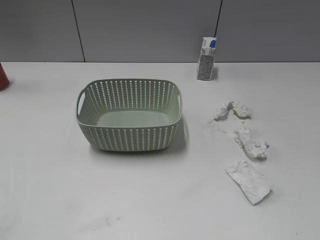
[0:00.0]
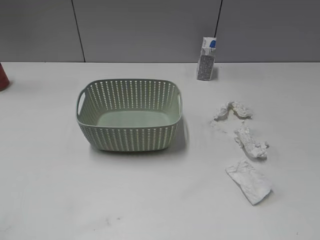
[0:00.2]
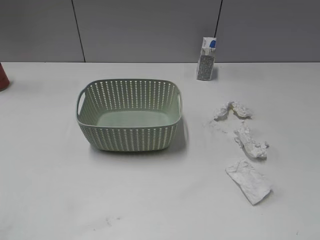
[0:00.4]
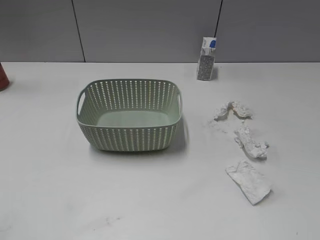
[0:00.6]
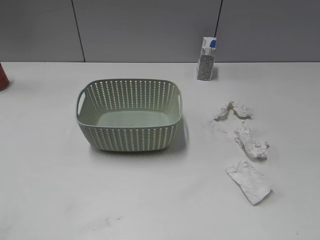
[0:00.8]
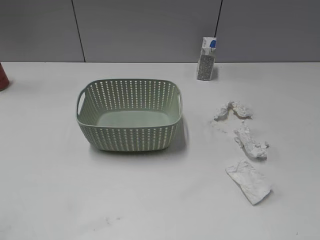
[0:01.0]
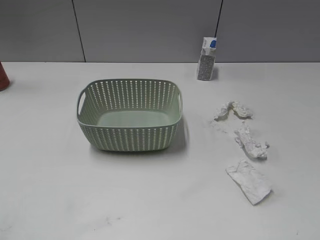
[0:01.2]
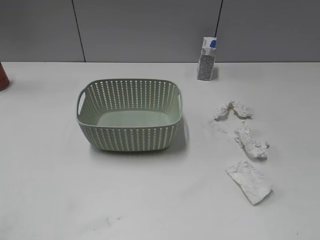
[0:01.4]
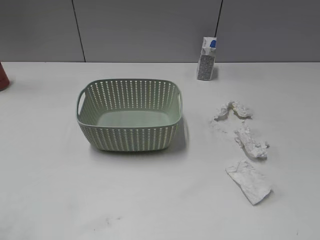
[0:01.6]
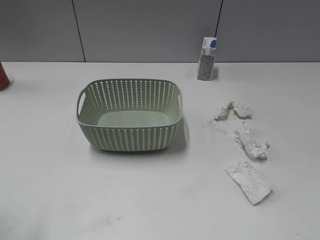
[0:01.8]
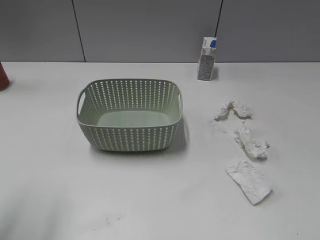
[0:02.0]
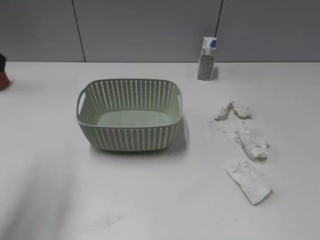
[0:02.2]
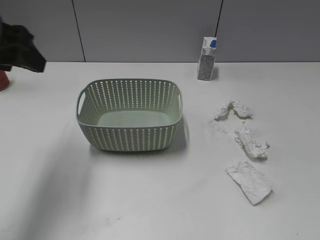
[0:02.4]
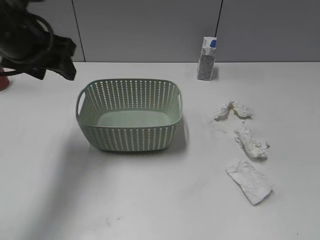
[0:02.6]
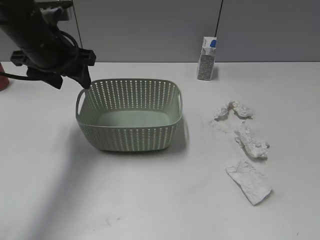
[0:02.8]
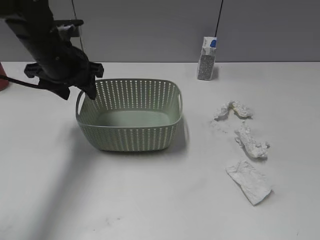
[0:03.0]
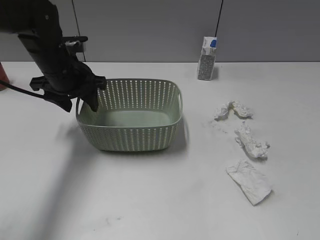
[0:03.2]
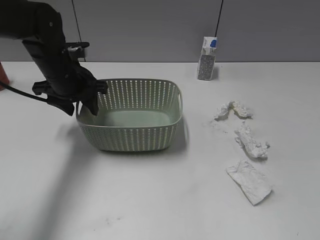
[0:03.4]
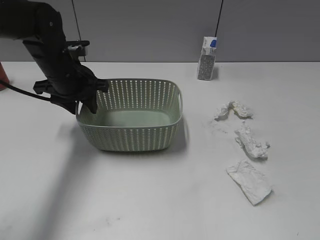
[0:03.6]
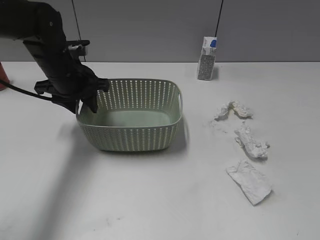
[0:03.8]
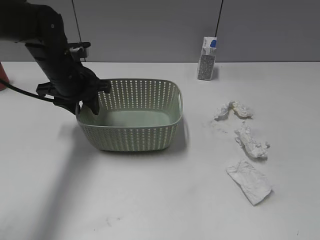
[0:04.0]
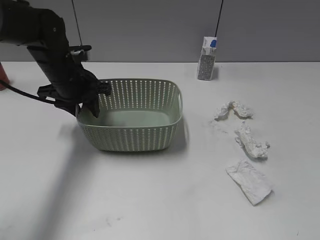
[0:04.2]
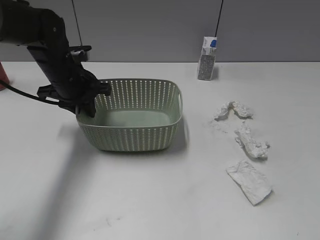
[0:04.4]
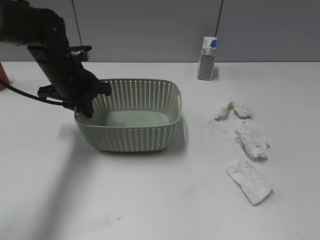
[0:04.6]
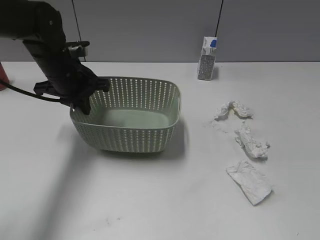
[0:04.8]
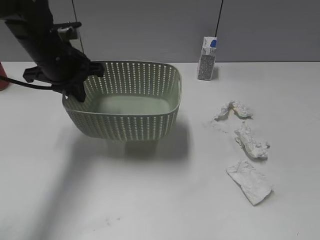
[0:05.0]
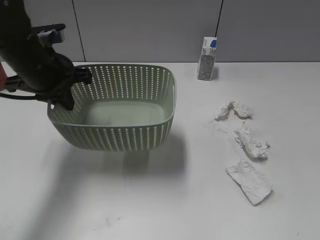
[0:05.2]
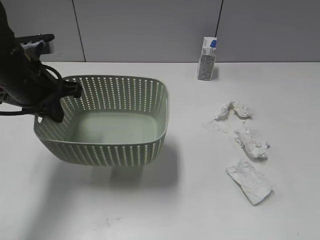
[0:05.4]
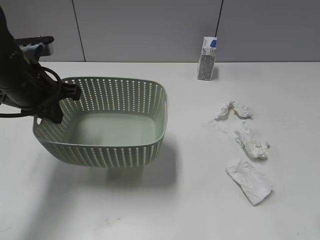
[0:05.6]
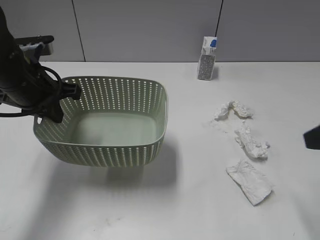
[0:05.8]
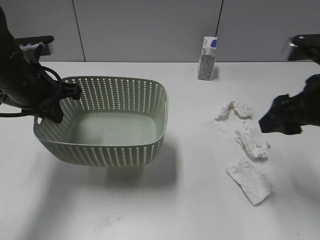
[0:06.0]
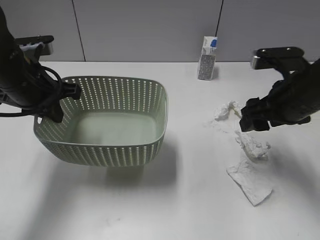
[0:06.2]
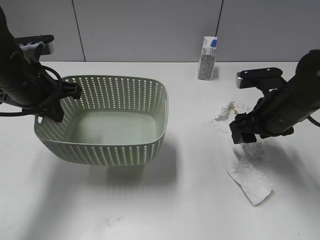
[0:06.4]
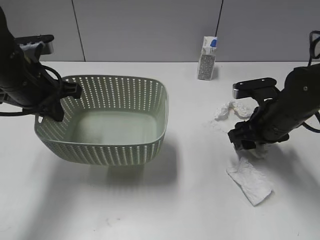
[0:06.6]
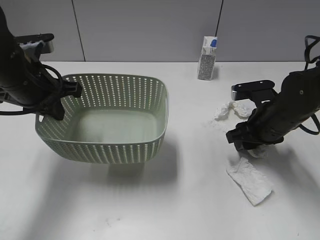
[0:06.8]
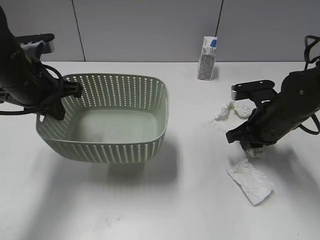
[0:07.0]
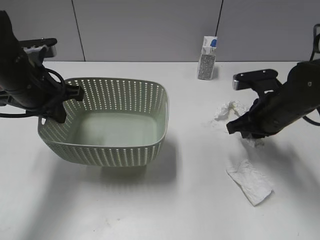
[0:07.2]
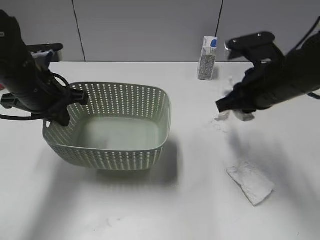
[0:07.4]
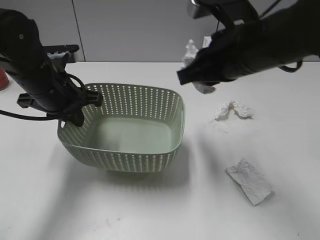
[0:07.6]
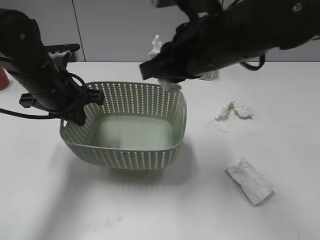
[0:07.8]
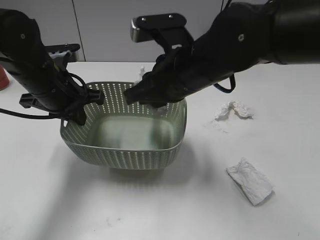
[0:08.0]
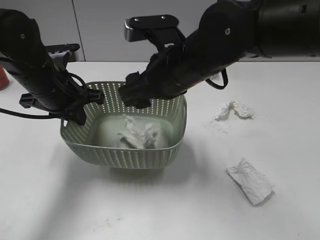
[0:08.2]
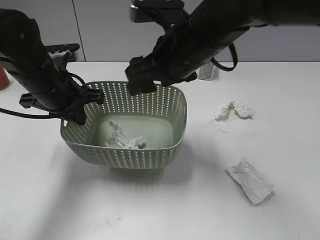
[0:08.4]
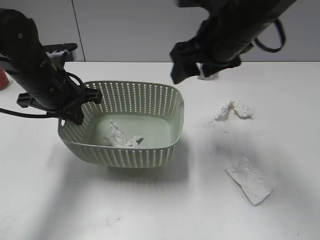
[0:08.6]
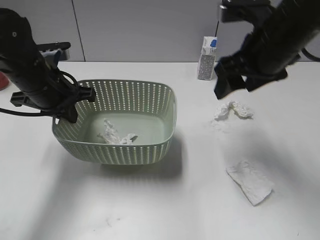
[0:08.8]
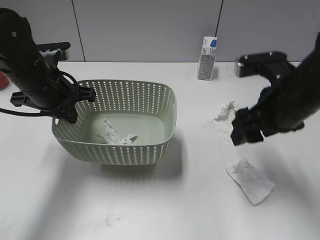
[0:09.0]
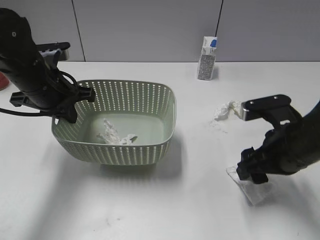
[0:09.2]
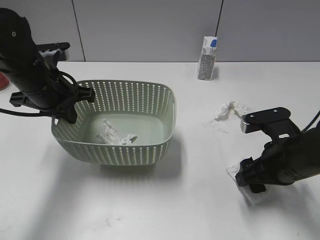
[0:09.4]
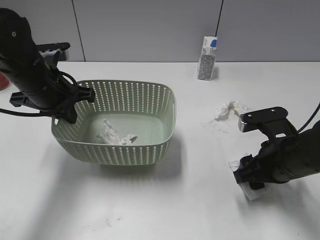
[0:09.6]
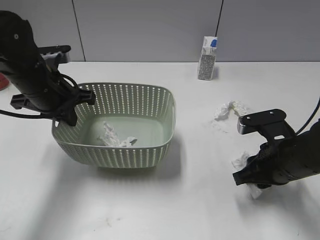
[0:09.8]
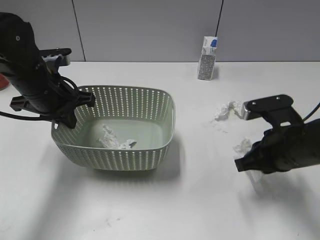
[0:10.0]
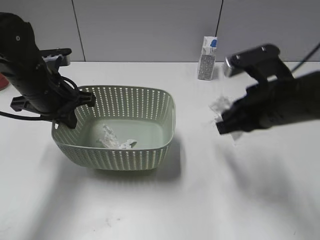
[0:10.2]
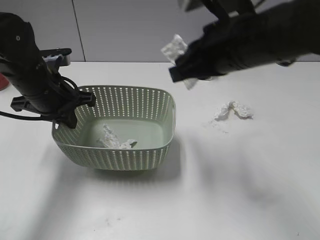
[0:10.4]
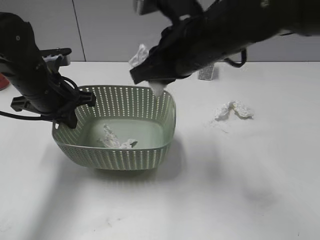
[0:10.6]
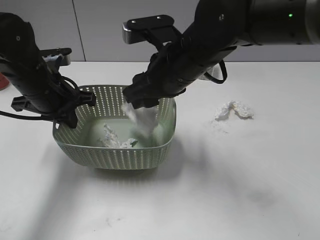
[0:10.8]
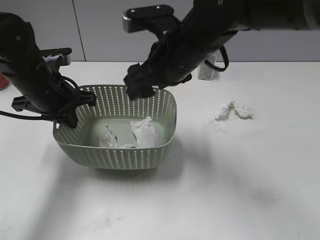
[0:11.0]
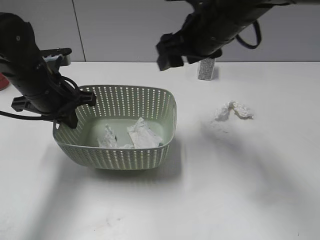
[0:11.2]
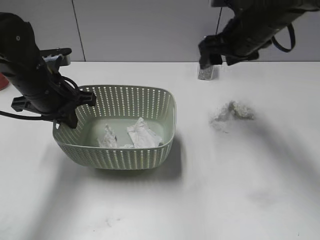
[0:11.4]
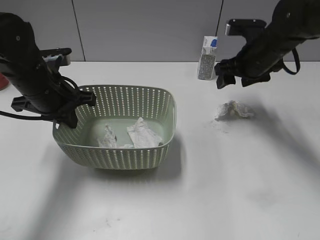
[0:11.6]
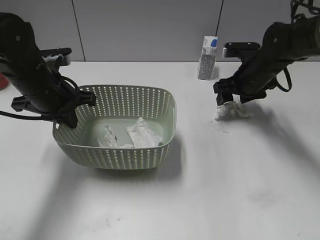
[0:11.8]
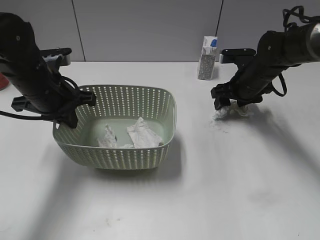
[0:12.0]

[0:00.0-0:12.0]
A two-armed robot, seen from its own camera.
Step, 0:02.2 to 0:04.6: Grasp the basket with left gripper.
Step, 0:05.0 to 0:07.2: Grasp the waste paper with right gripper.
Step, 0:07.4 to 0:08.2: Place the waste paper in the basket with right gripper.
Step, 0:08.4 to 0:09.8: Grasp the waste paper with right gripper.
Step, 0:10.0 to 0:11.0: Place the waste paper in the basket with right gripper.
0:01.6 to 0:03.0: The left gripper travels forward, to the right and downward by about 35 cm.
0:03.0 to 0:04.4: The left gripper closes.
0:04.4 to 0:06.0: The left gripper heads backward and upward, covering approximately 10 cm; the right gripper travels forward by about 25 cm.
0:06.0 to 0:07.6: The right gripper shifts roughly 15 cm to the left, goes downward and returns, approximately 10 cm each way, and closes its fingers.
0:07.6 to 0:09.0: The right gripper heads to the right and downward, covering some 15 cm, and opens up.
0:09.0 to 0:10.4: The right gripper goes roughly 15 cm to the left and upward, and closes.
0:10.4 to 0:12.0: The right gripper goes some 25 cm downward, forward and to the right, and opens up.

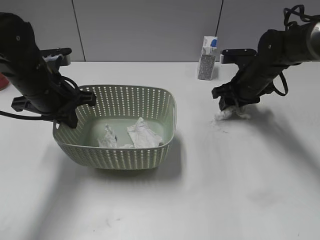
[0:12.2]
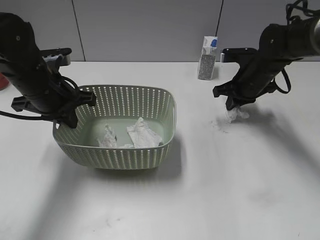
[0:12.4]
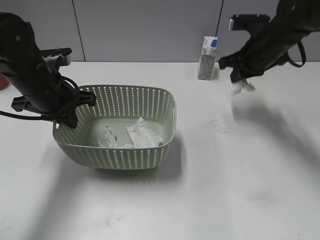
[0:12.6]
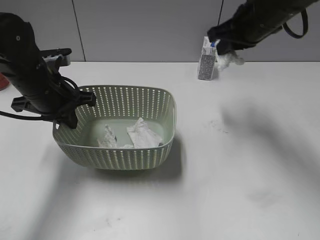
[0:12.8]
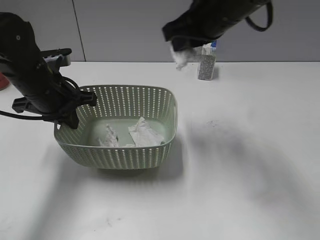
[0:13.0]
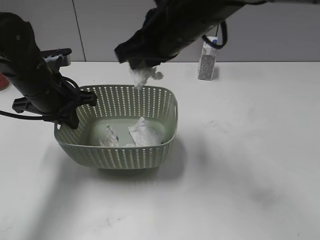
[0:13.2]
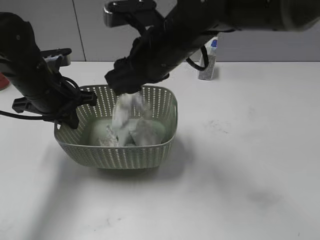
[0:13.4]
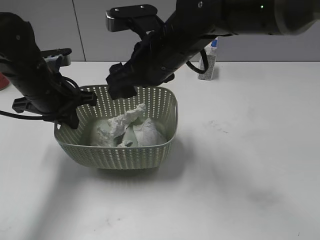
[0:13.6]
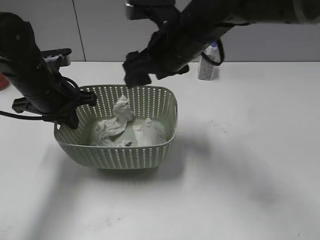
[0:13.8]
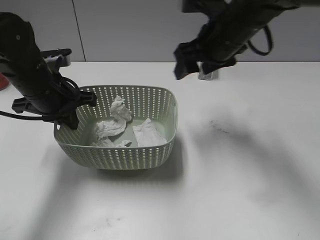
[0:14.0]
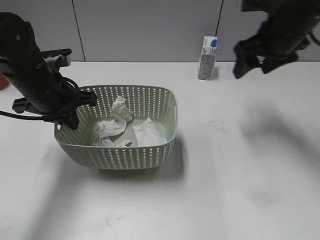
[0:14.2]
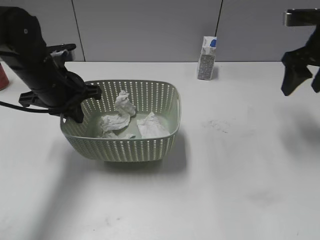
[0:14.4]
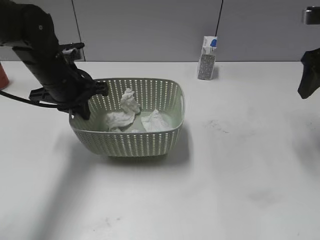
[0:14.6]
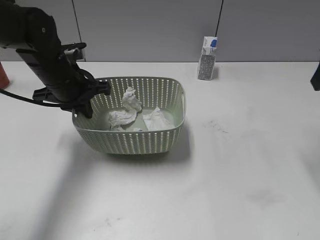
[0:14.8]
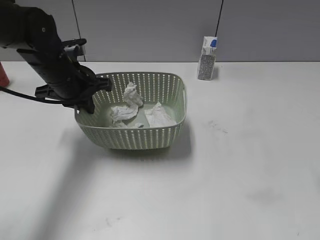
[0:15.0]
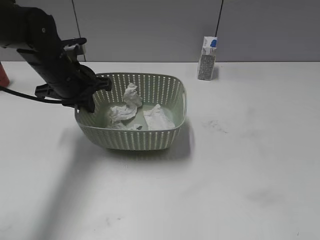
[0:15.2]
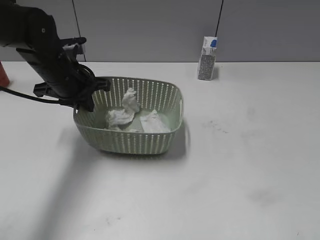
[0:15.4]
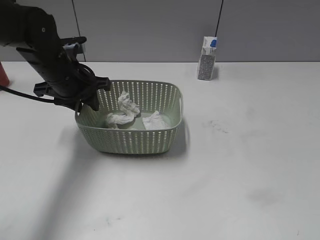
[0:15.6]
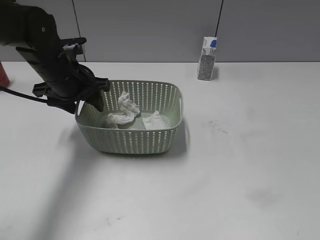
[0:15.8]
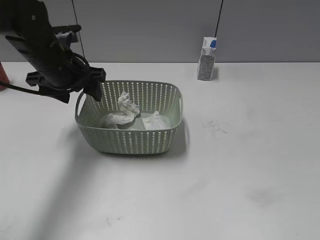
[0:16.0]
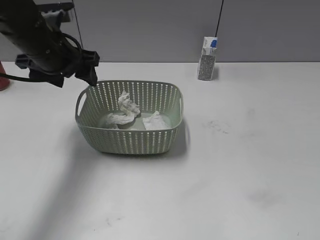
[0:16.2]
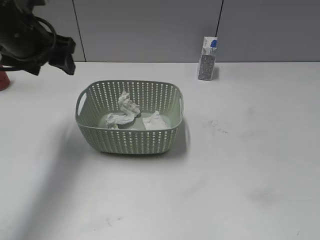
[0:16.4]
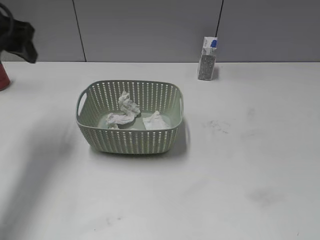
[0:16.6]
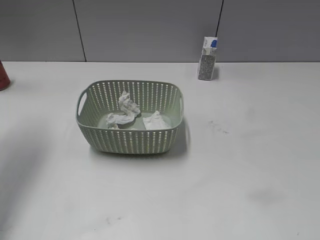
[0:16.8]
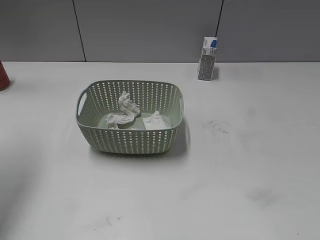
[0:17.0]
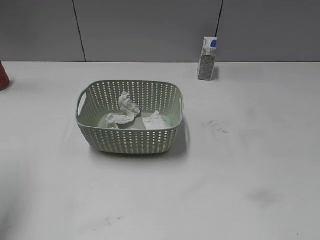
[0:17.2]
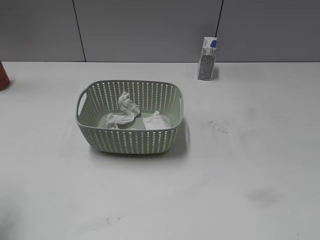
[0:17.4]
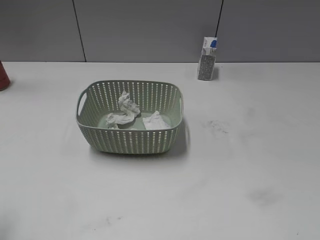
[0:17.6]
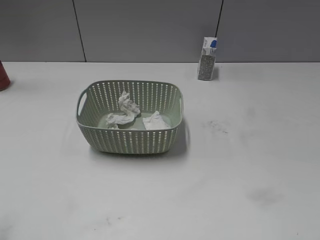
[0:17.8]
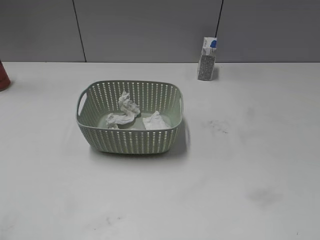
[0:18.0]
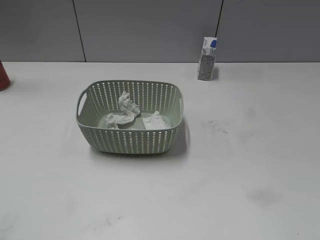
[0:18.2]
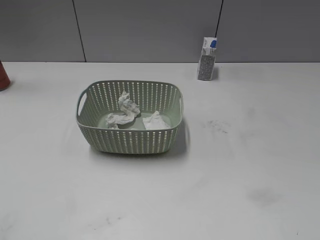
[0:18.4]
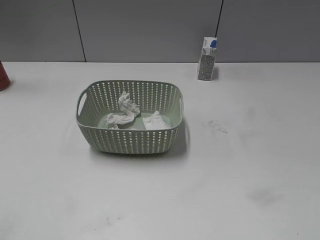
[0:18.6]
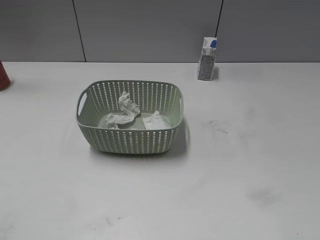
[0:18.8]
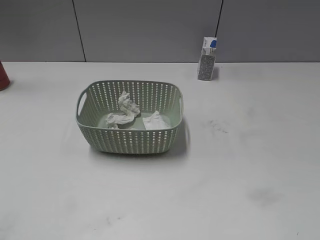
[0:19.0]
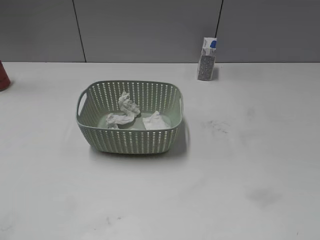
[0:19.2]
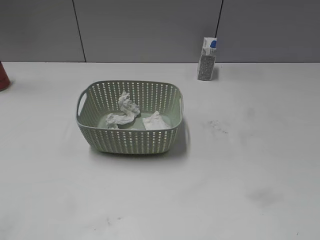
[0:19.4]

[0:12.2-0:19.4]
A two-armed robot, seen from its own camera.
Step, 0:12.6 to 0:13.8: Place the waste paper in the basket with right gripper.
0:12.2 to 0:13.6: The right gripper heads to the left, upward and backward, covering some 25 cm, and opens.
0:13.6 to 0:15.0: The right gripper goes some 30 cm to the right and backward.
0:15.0 to 0:16.6: The right gripper moves backward, approximately 20 cm. The left gripper is displaced upward and to the left by about 15 cm, and opens its fingers.
0:16.6 to 0:18.0: The left gripper shifts approximately 30 cm backward.

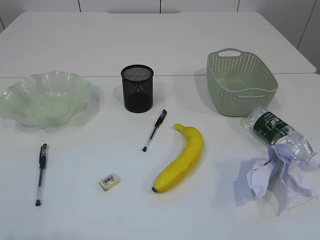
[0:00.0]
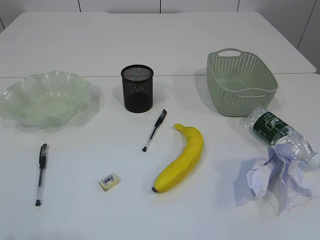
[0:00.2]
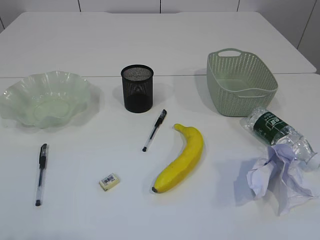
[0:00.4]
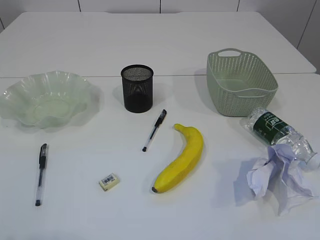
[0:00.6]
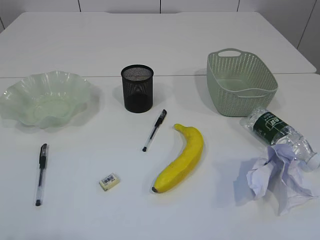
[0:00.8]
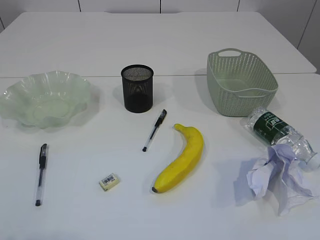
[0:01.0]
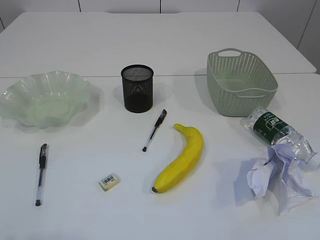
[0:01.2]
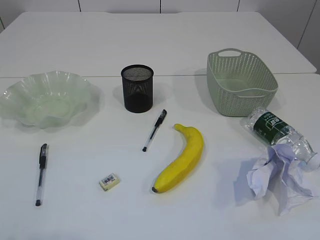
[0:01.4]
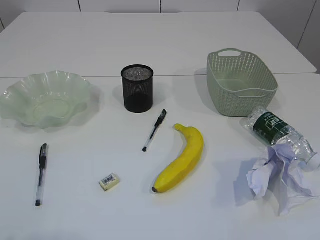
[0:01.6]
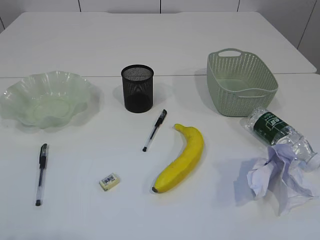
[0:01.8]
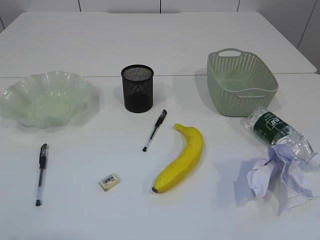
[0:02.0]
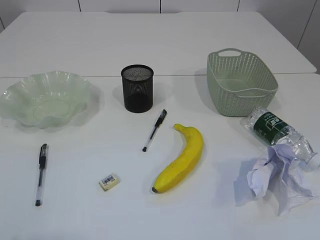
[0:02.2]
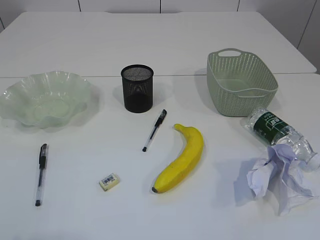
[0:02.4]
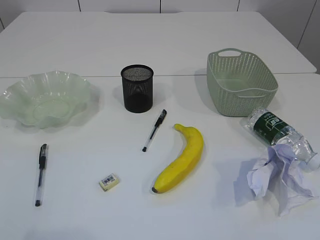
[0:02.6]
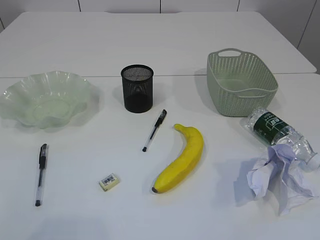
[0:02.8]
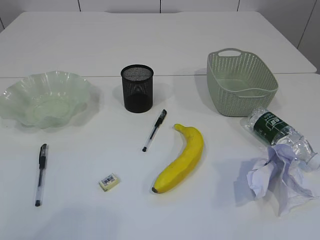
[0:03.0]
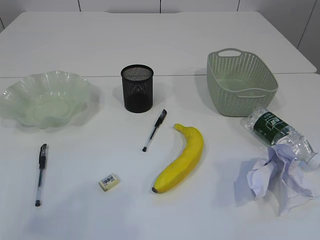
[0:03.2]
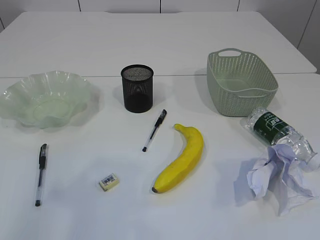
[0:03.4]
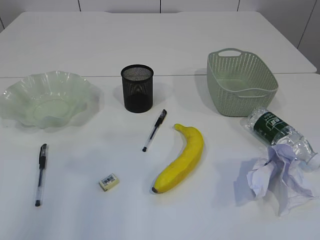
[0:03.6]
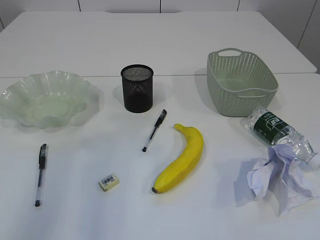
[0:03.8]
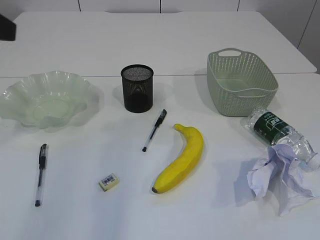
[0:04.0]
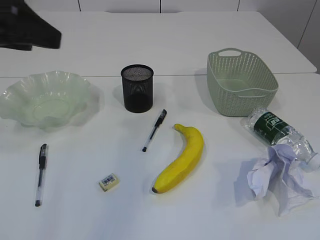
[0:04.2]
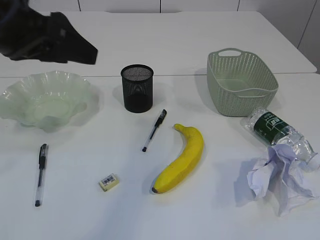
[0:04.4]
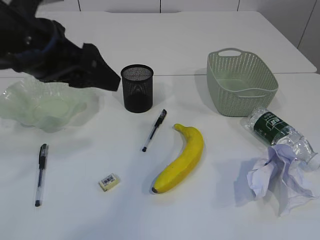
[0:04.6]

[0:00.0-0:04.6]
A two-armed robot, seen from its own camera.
0:03.0 to 0:04.6: The left gripper shifts approximately 25 cm forward and to the right.
